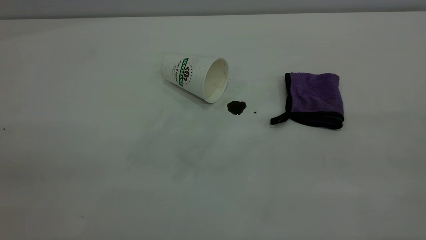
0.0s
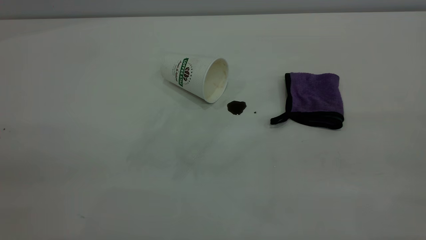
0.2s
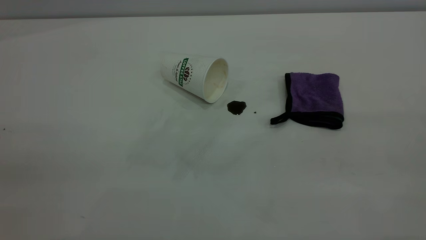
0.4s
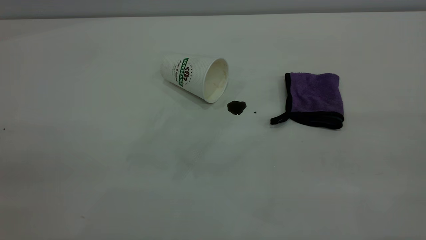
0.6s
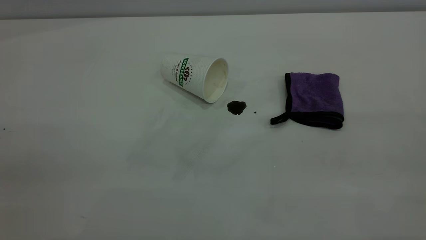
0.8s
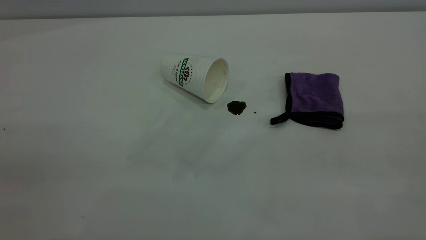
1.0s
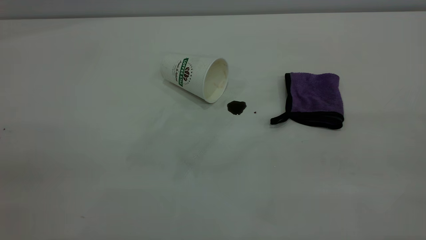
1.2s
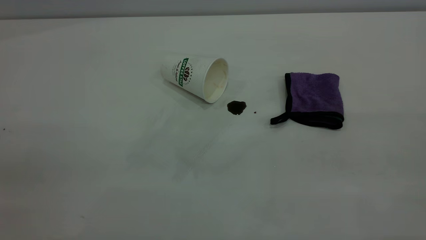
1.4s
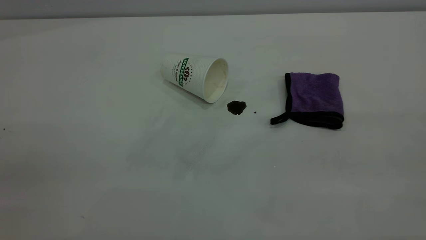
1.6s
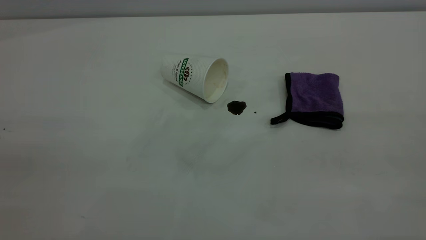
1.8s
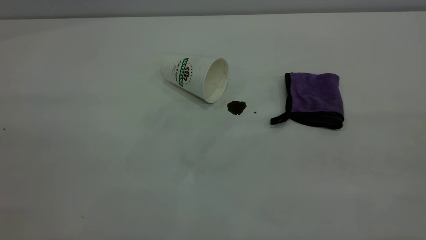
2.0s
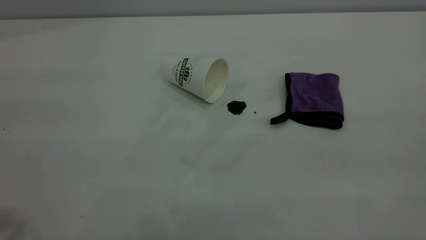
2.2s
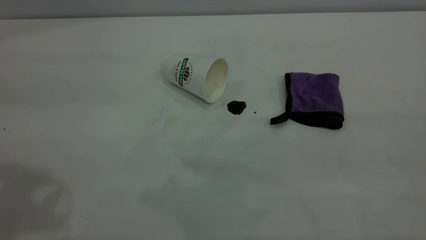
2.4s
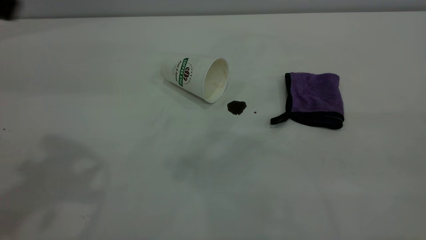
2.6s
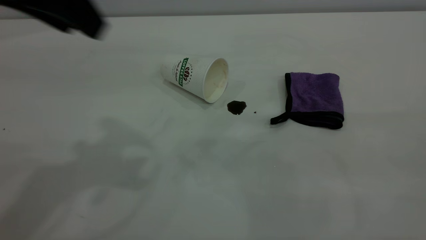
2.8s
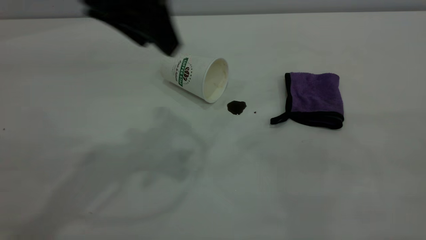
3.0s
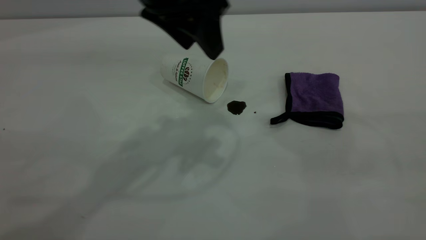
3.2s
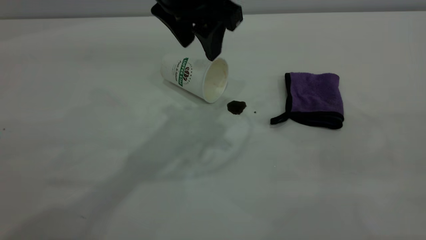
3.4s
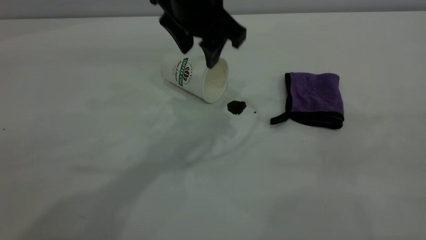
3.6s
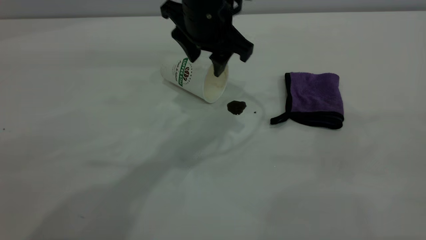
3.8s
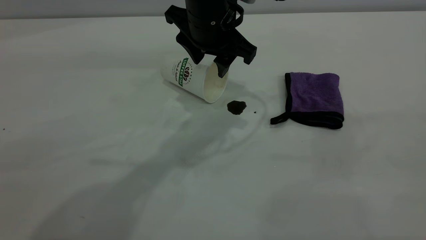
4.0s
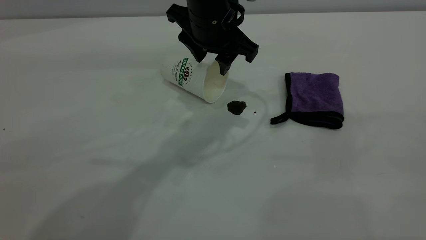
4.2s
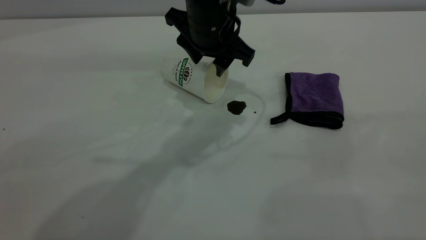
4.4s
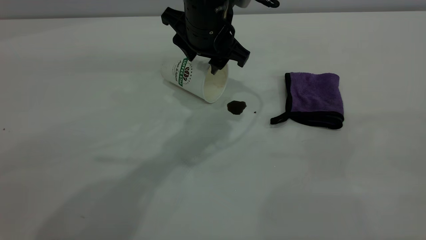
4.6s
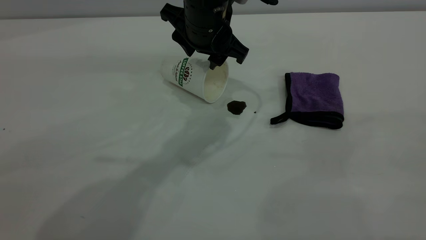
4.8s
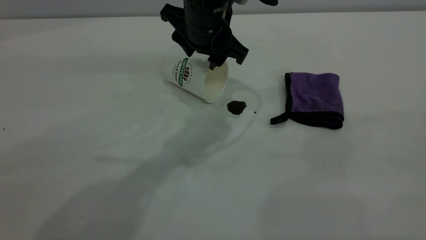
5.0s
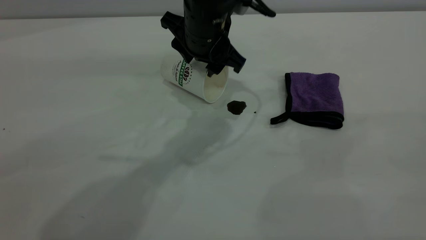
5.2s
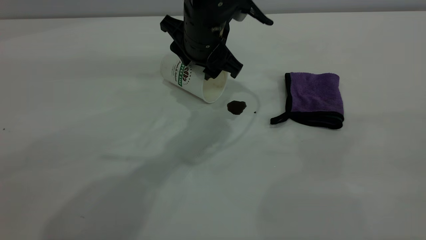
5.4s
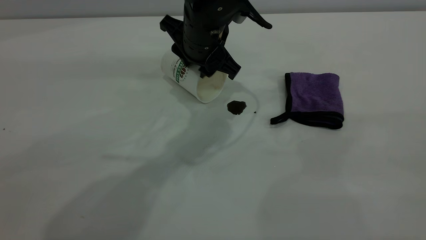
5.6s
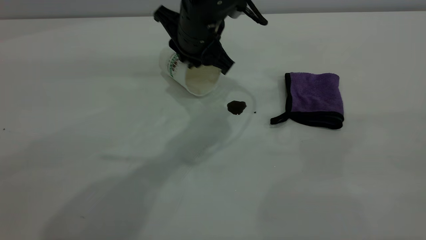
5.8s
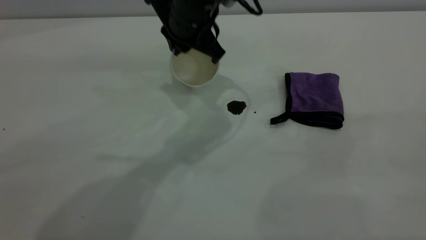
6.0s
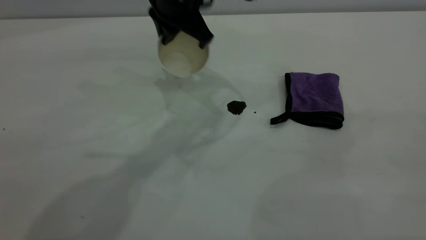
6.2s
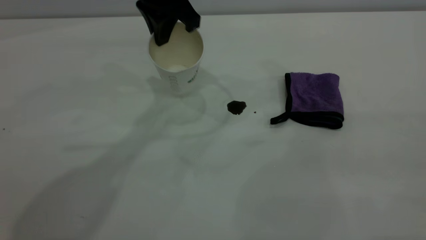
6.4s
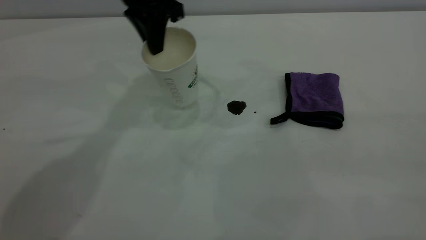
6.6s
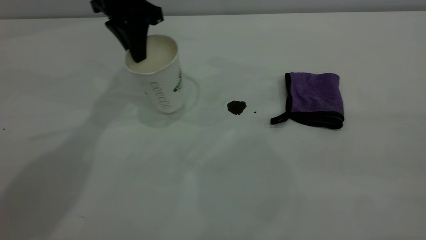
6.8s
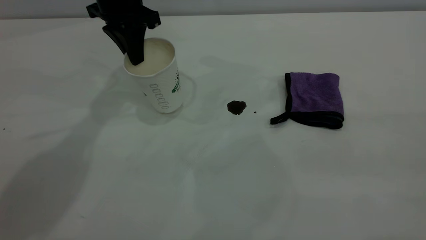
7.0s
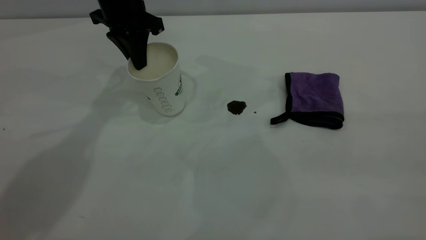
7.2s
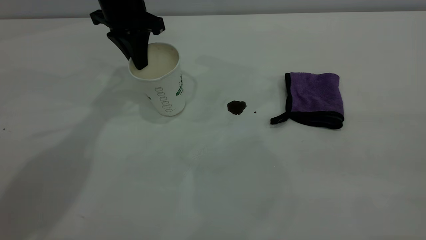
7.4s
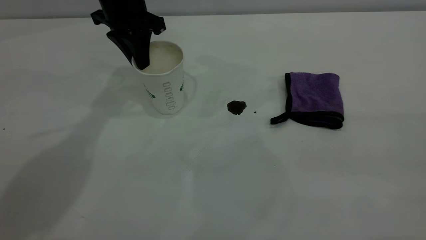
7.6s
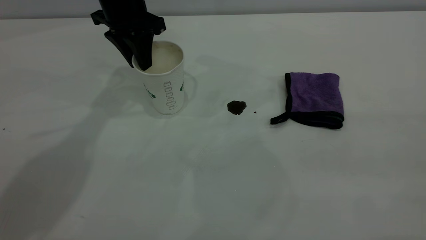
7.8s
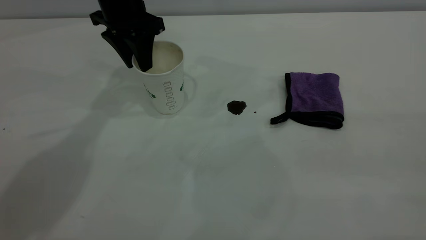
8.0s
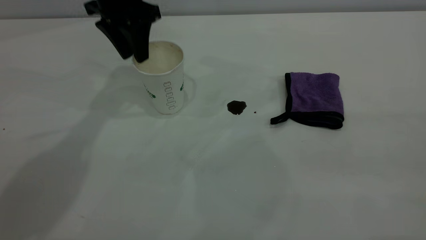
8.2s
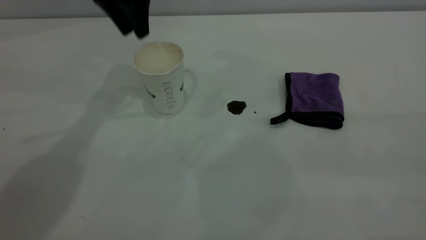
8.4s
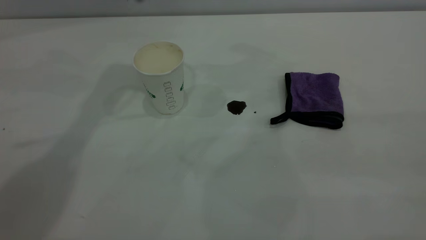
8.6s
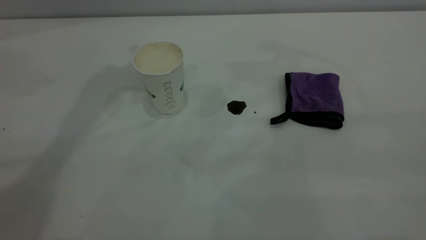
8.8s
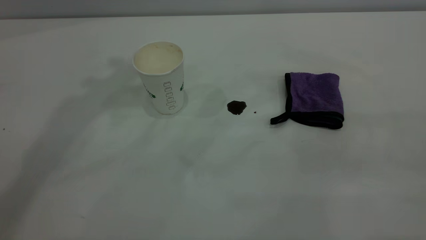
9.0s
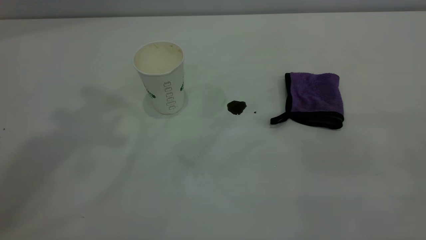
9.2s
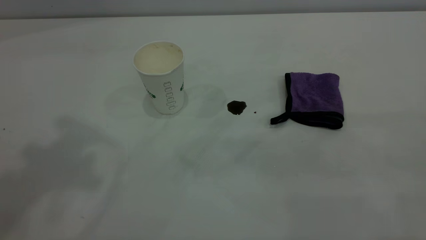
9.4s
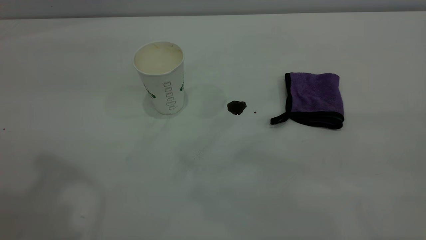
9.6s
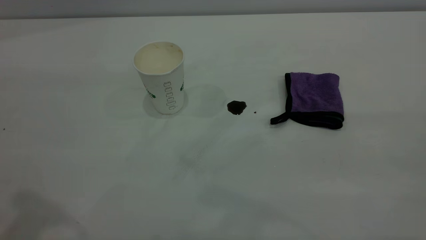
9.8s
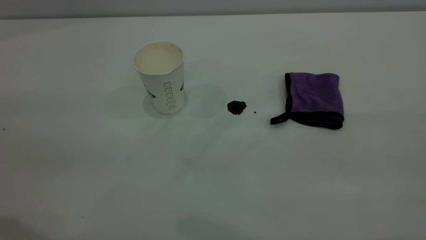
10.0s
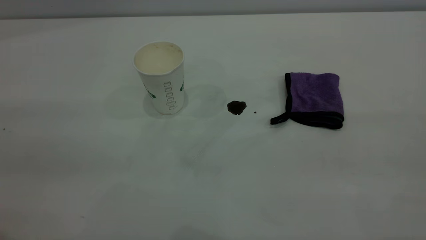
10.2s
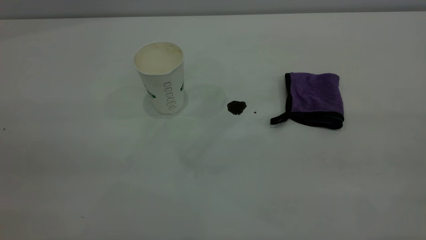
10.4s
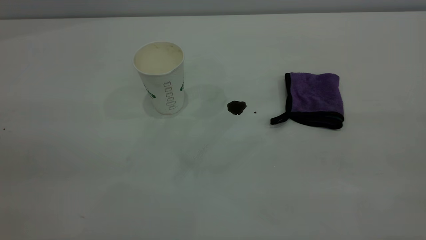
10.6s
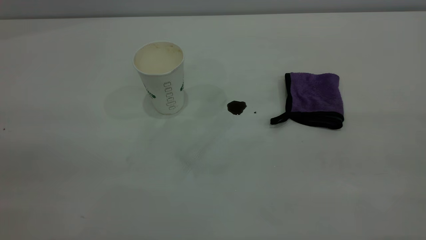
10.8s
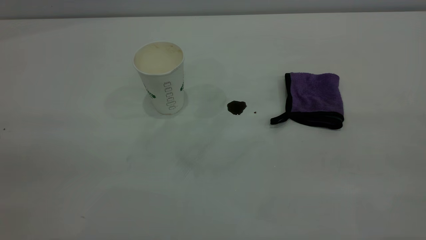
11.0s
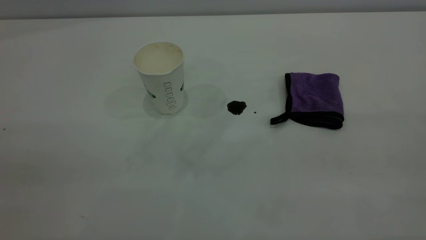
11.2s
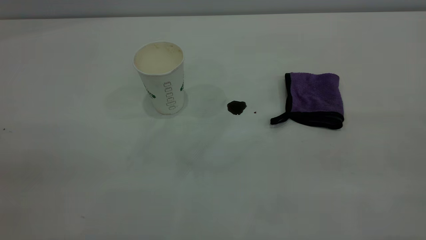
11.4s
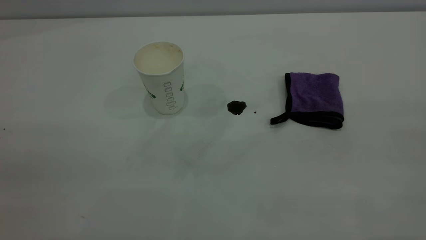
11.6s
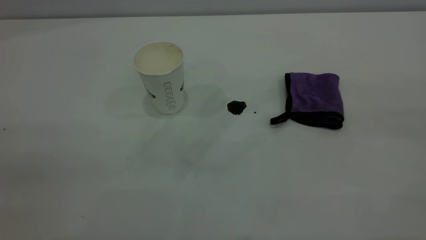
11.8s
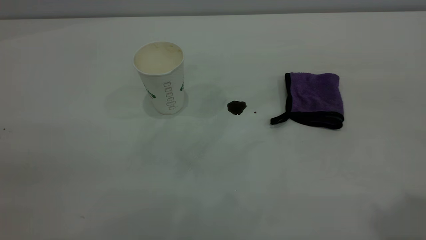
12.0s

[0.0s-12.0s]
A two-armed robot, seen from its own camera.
Task of the whole recording: the left gripper pick up the fallen cup and place it upright, the right gripper grasp the purple rag and wipe the coffee stain on the table, the right gripper put the purple rag back in its original position.
Step, 0.0s to 8.2s: Stand the paper cup upright.
0.0s to 1.6s: The two grippers keep their place.
1.6s to 3.0s: The left gripper travels forward and to the right by approximately 35 cm.
3.0s to 4.4s: The left gripper shifts about 20 cm downward, to the right and forward.
4.4s to 6.0s: The left gripper closes its fingers.
6.0s to 7.6s: The left gripper moves to the left and forward, about 15 cm.
7.6s to 9.0s: The left gripper shifts approximately 30 cm upward, and opens up.

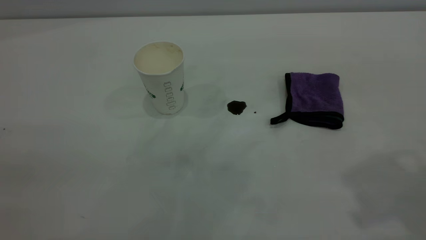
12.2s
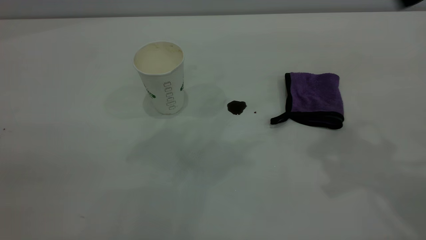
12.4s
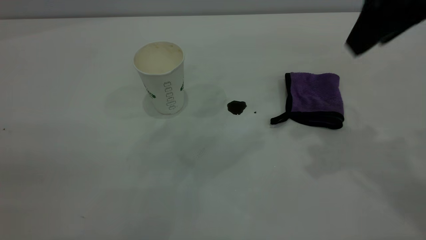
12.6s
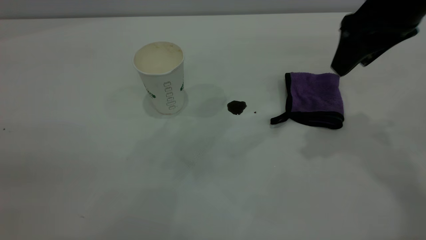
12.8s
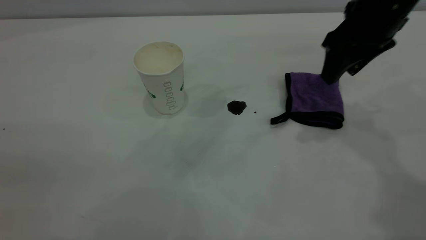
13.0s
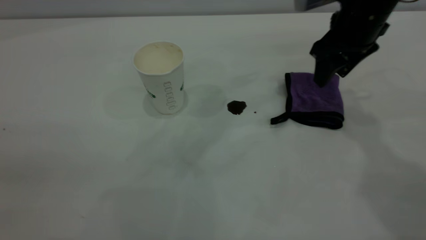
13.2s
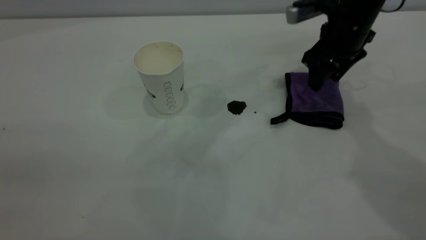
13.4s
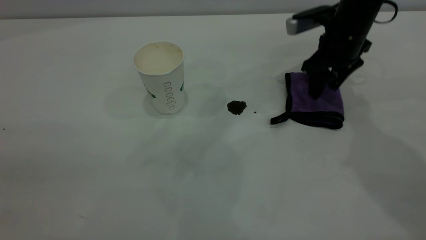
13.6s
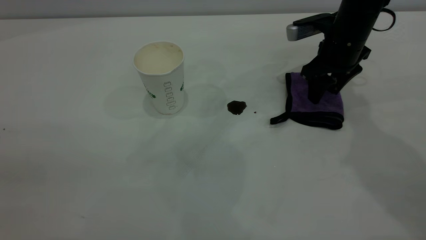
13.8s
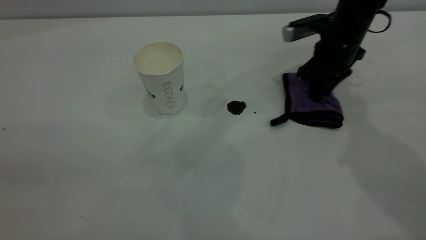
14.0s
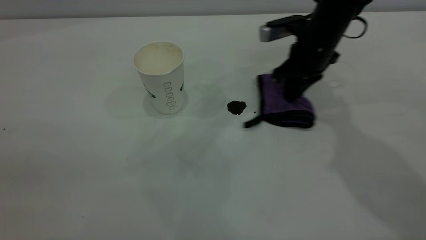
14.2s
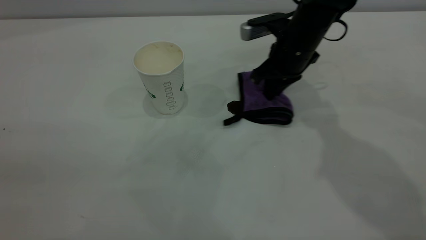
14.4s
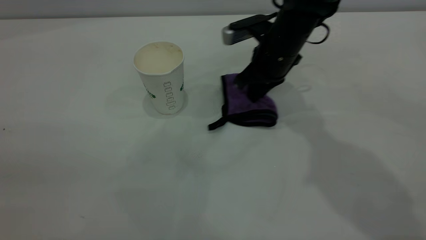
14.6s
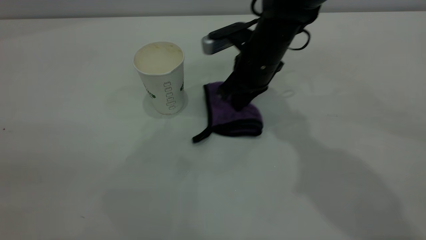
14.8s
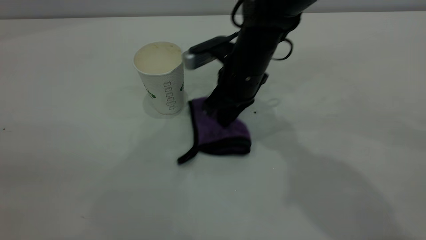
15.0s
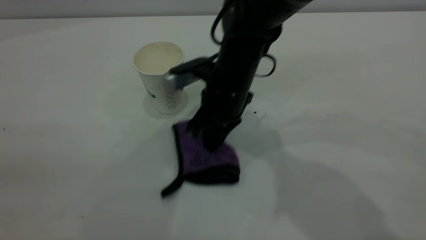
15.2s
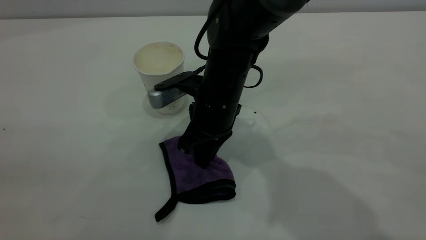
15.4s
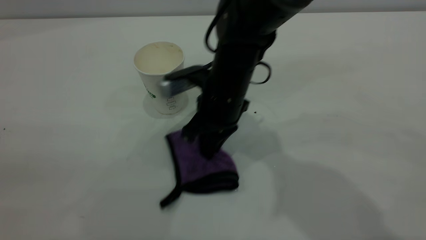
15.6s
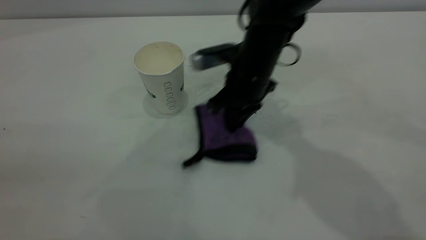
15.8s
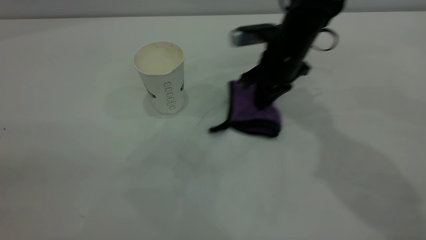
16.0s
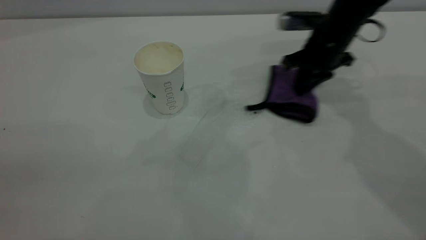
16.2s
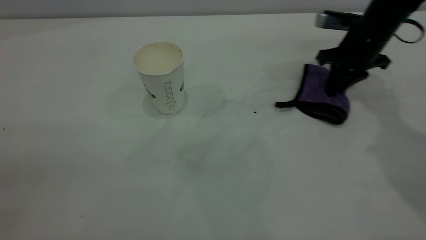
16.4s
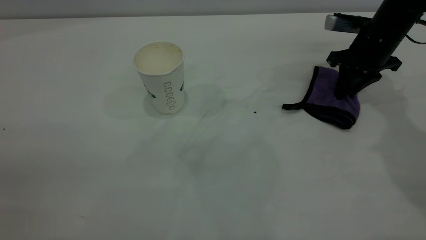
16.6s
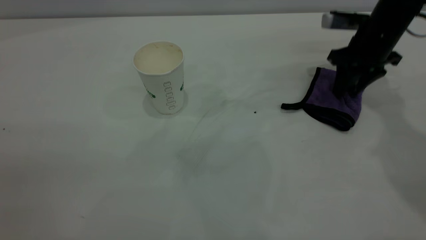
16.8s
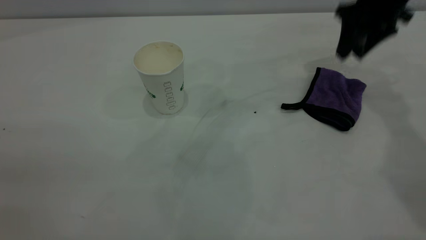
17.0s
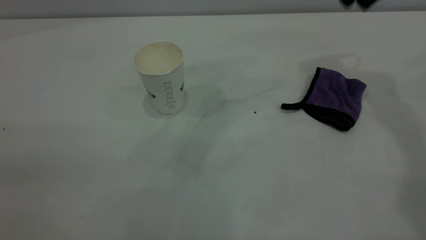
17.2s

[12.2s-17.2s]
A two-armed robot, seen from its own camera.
Task of the whole recording: the left gripper pick up the fallen cup and place it upright, the right gripper grasp the purple rag and wipe the coffee stain on the table, the right gripper put the purple rag back in its original position.
Step, 12.2s to 16.8s: Wipe the stains off the table with a rag.
12.2s to 13.8s: The right gripper shifts some 35 cm downward and forward.
13.8s to 15.6s: The right gripper is displaced to the left and backward by approximately 20 cm, and closes up.
15.6s to 17.2s: The right gripper is displaced to the right and upward by some 30 cm, and opens up.
